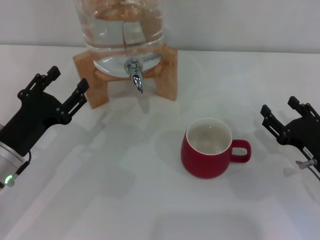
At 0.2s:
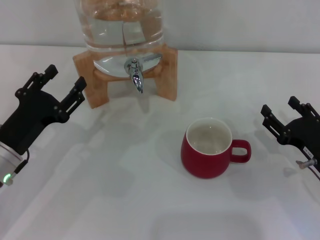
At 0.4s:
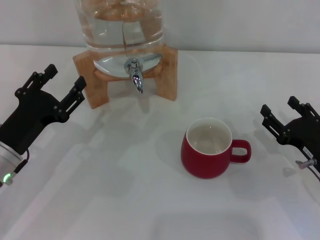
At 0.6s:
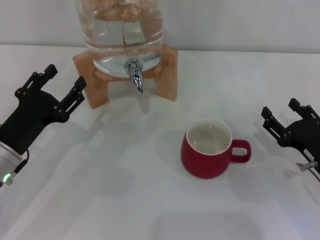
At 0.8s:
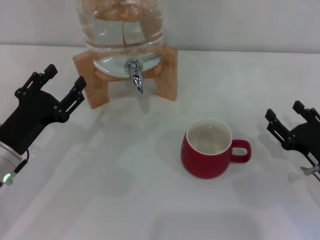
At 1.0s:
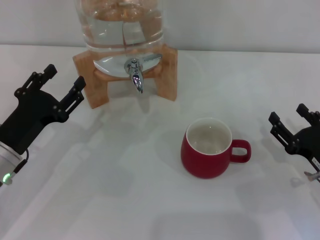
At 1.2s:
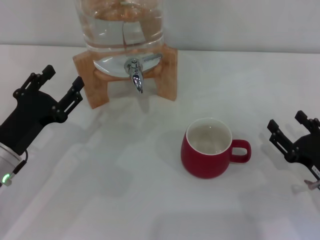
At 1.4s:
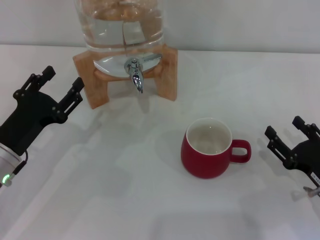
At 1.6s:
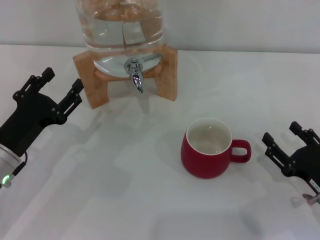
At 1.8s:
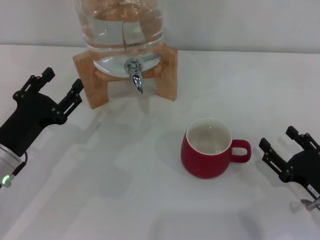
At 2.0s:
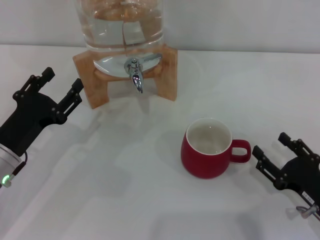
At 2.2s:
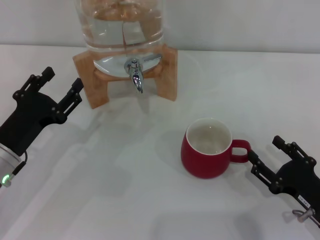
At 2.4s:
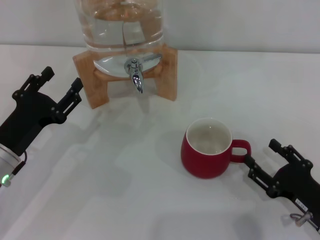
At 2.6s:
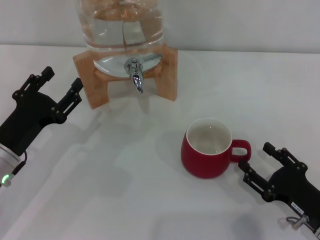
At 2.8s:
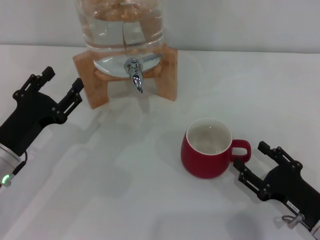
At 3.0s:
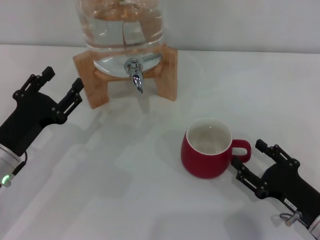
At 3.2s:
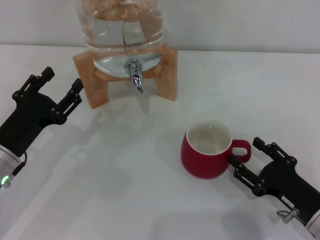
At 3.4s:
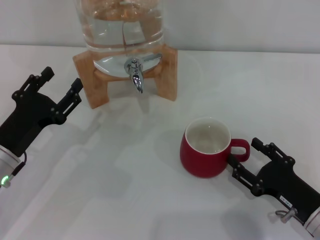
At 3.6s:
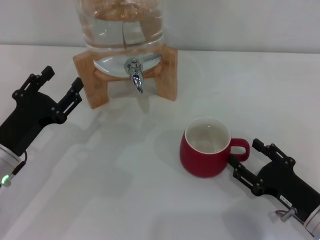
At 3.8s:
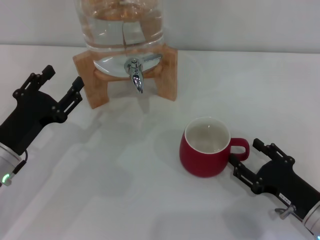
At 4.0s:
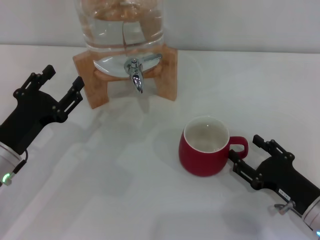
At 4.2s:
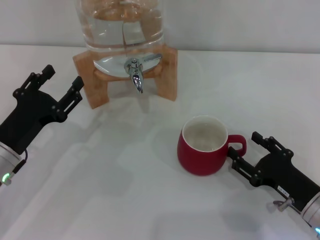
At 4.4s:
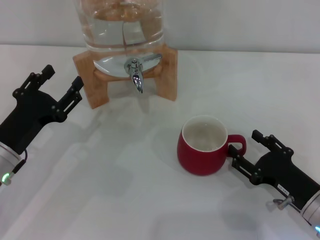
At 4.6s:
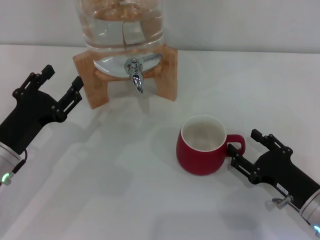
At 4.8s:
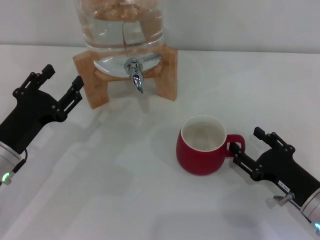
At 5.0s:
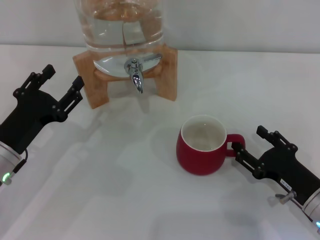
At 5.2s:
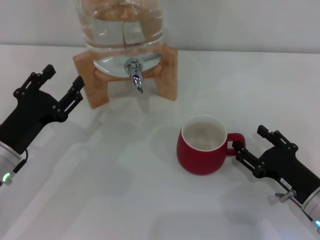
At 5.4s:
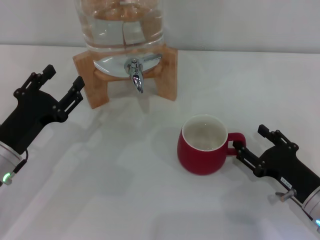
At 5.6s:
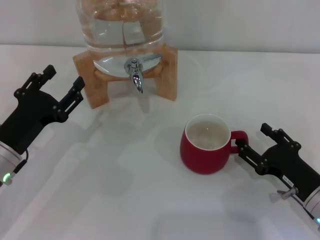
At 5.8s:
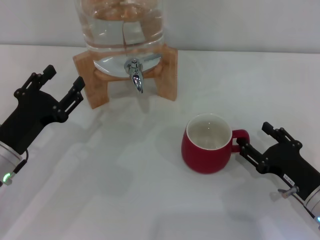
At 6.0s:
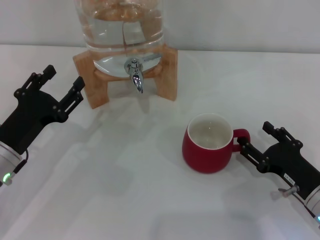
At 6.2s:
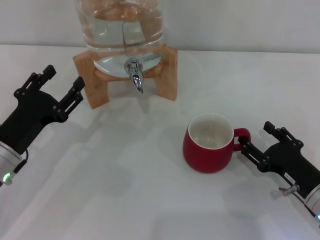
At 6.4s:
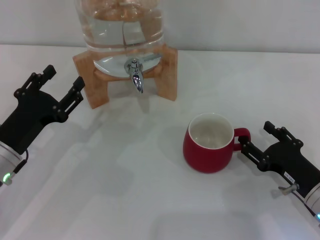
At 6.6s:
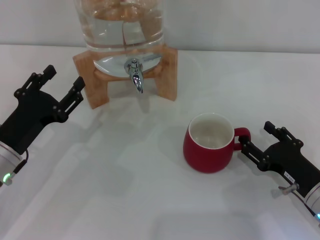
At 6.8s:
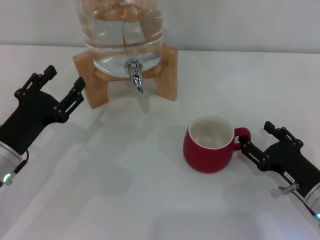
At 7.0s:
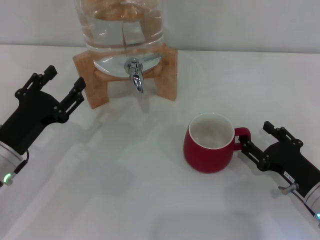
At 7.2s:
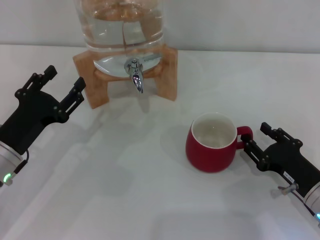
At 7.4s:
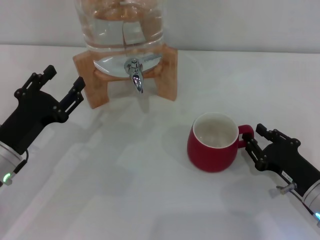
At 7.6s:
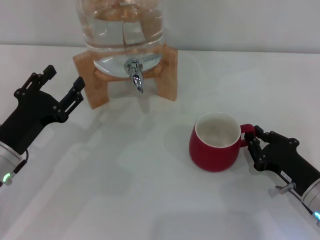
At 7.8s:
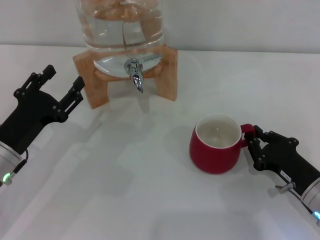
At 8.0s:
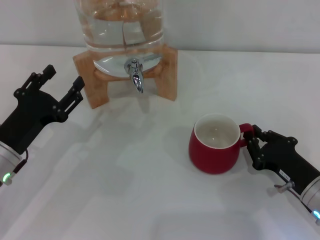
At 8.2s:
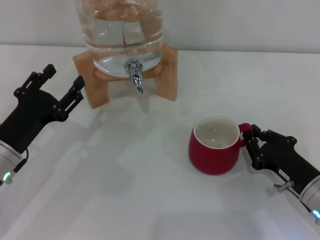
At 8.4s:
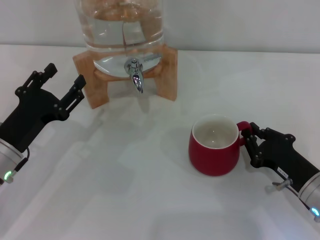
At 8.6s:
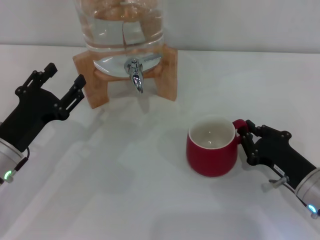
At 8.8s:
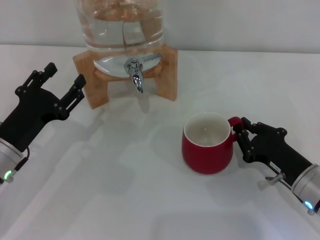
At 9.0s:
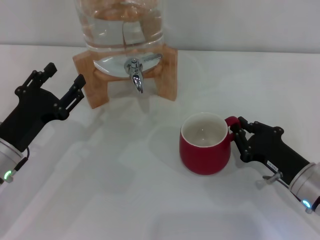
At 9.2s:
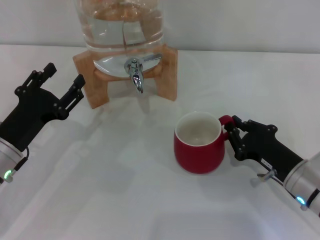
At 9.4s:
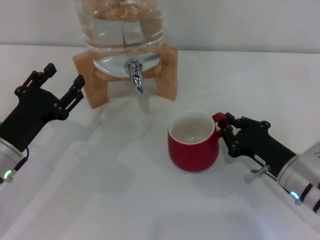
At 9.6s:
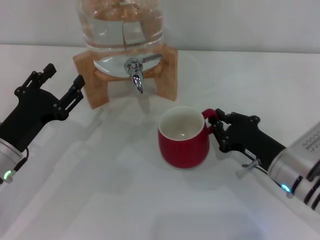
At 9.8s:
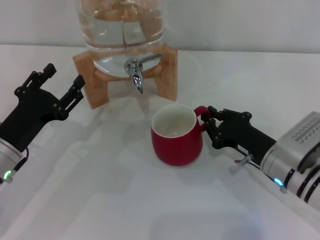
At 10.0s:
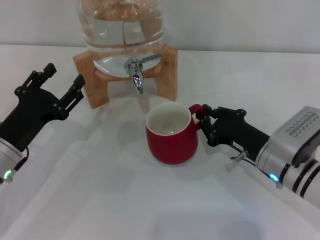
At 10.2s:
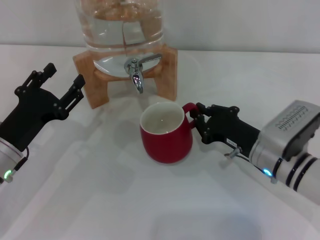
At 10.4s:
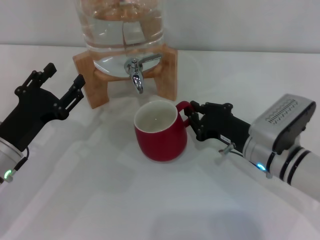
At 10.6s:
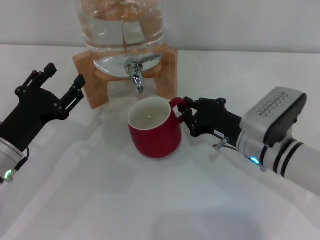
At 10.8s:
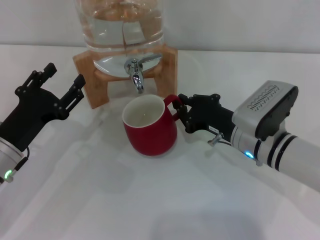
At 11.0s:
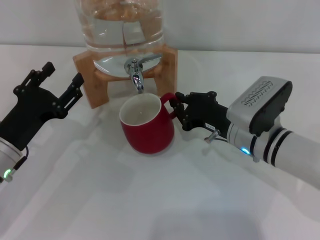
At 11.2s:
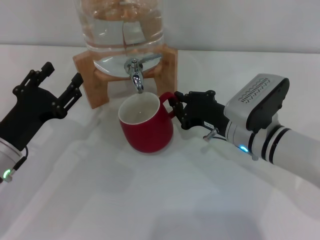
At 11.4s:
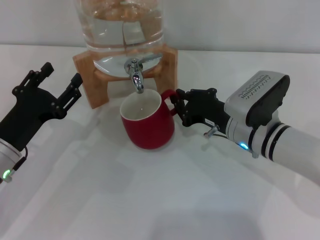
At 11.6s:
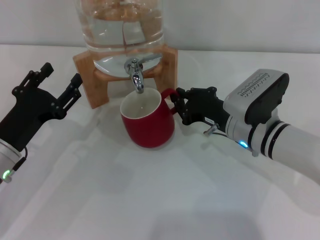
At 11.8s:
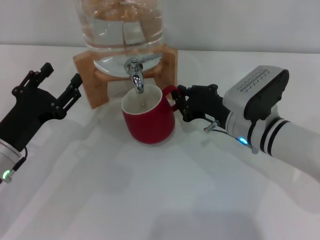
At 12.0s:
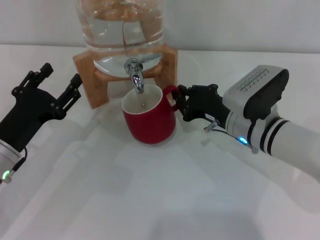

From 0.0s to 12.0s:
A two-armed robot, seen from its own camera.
Task of the whole recording: the right gripper pick up the red cup and place it horizontally under the faucet, the left gripper turn on the faucet to fill the cup, and then turn off the faucet.
From 0.0s to 1.6s: There are only small adjustments of the grippers.
From 1.6s to 6.0s: The grippers stay close to where they were, moving slightly.
From 6.0s to 7.6s: The right gripper closes.
From 7.6s to 9.0s: The right gripper closes its fingers.
From 9.0s to 10.4s: The right gripper moves to the left and forward, approximately 10 cm.
From 10.4s to 12.0s: The right gripper changes place by approximately 5 cm.

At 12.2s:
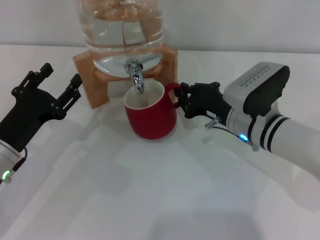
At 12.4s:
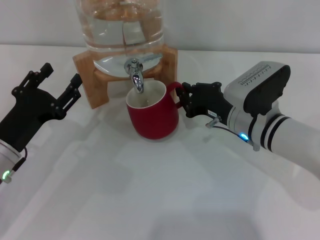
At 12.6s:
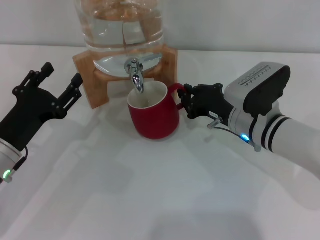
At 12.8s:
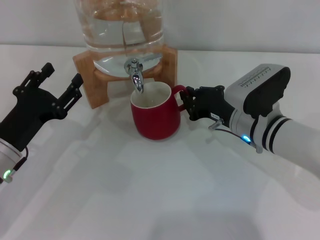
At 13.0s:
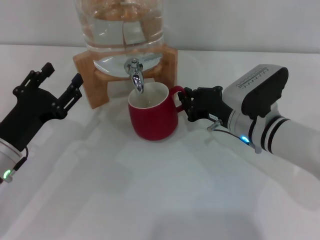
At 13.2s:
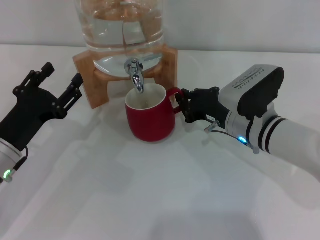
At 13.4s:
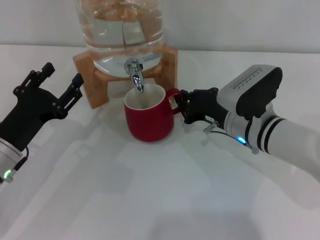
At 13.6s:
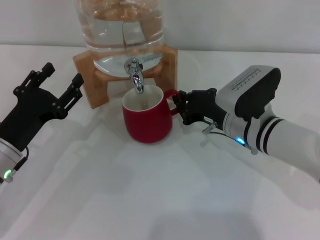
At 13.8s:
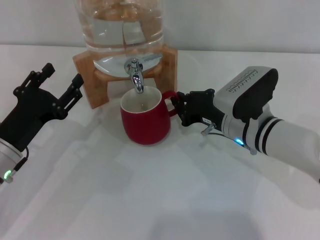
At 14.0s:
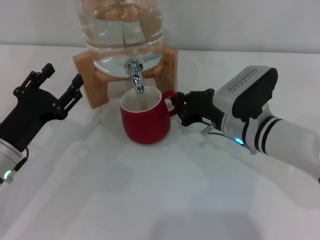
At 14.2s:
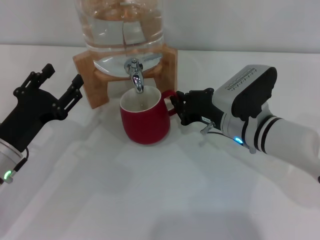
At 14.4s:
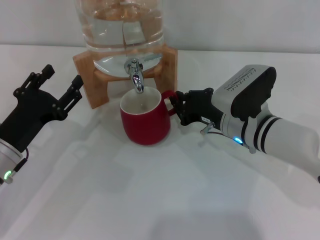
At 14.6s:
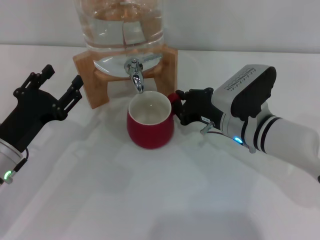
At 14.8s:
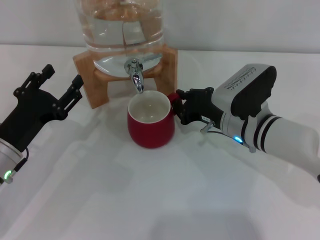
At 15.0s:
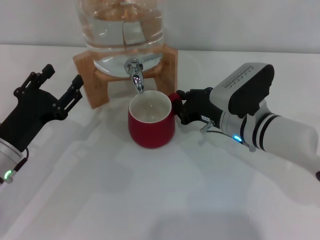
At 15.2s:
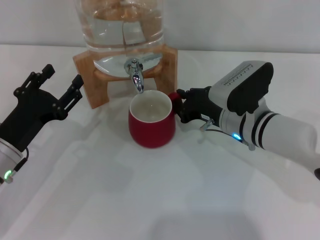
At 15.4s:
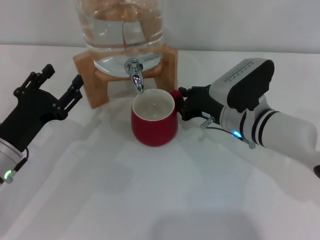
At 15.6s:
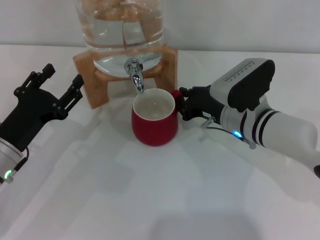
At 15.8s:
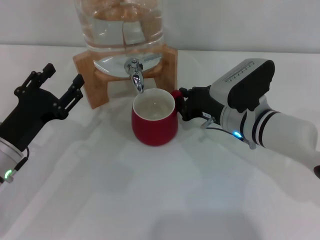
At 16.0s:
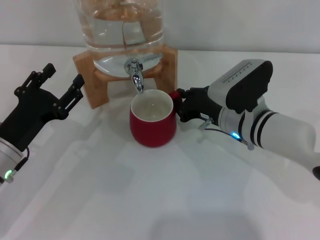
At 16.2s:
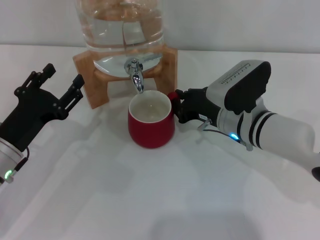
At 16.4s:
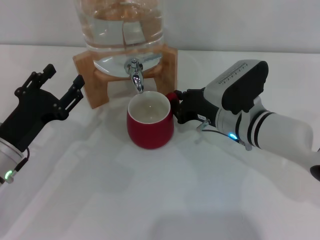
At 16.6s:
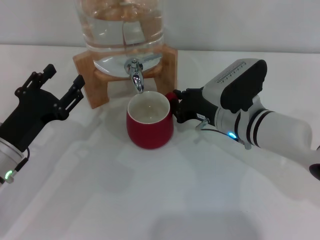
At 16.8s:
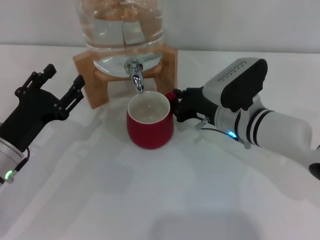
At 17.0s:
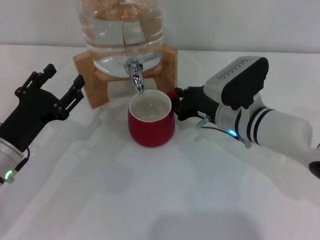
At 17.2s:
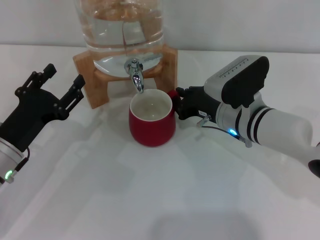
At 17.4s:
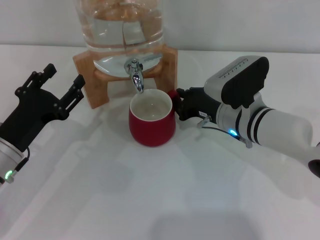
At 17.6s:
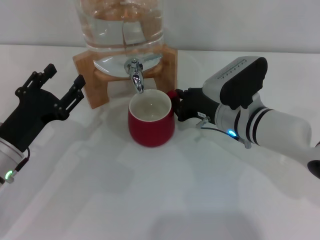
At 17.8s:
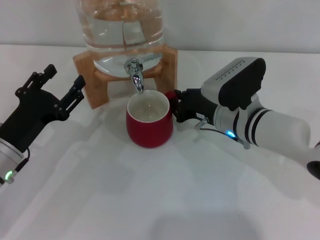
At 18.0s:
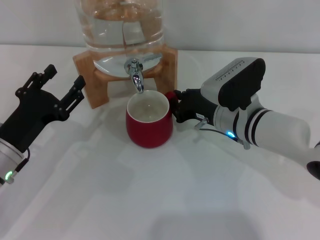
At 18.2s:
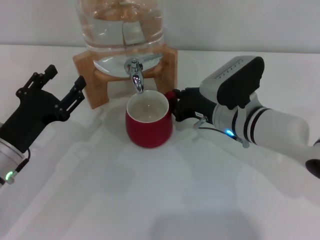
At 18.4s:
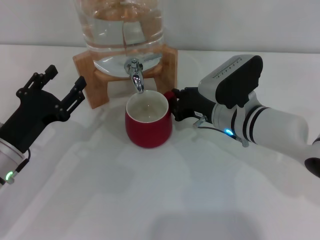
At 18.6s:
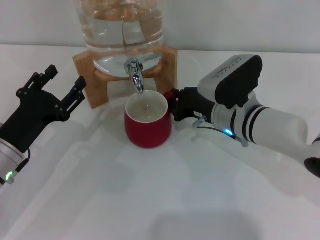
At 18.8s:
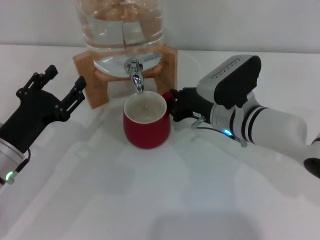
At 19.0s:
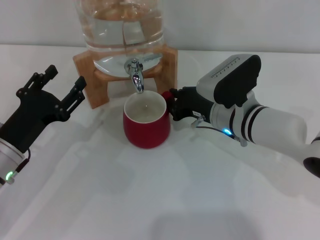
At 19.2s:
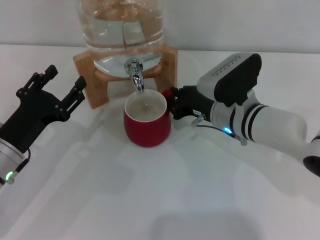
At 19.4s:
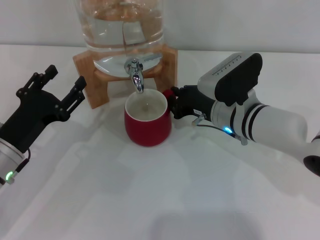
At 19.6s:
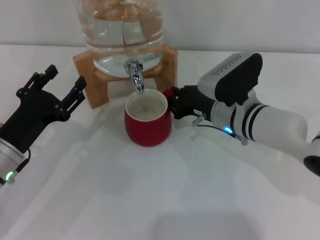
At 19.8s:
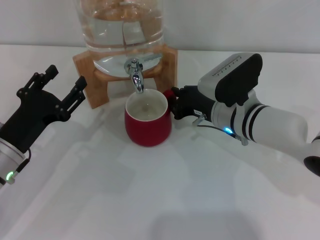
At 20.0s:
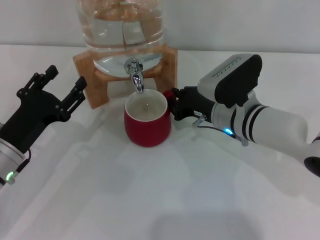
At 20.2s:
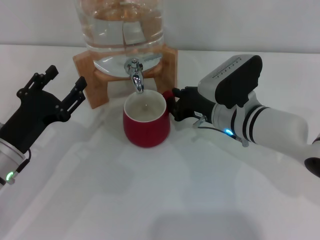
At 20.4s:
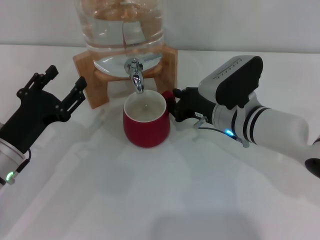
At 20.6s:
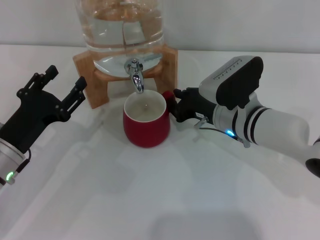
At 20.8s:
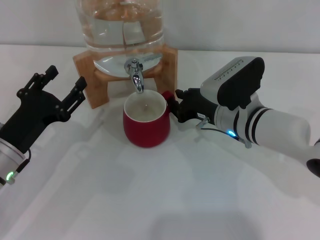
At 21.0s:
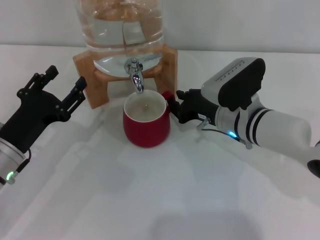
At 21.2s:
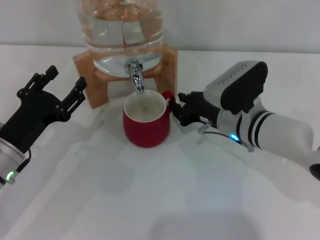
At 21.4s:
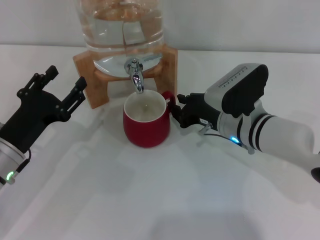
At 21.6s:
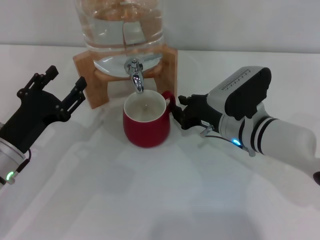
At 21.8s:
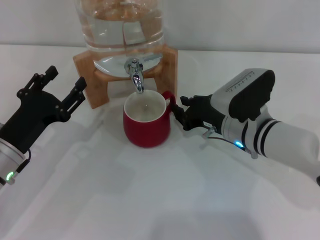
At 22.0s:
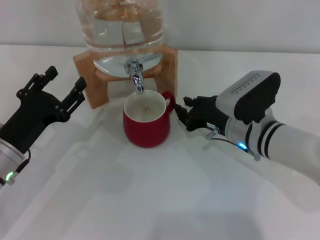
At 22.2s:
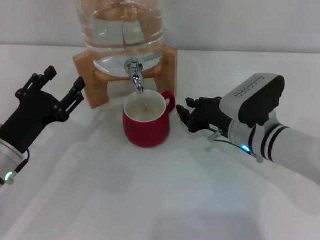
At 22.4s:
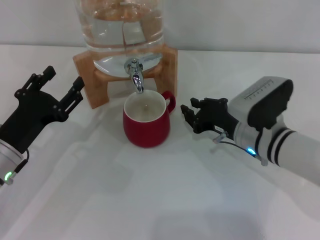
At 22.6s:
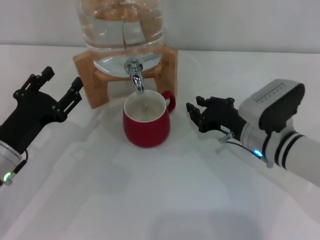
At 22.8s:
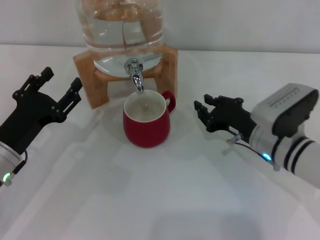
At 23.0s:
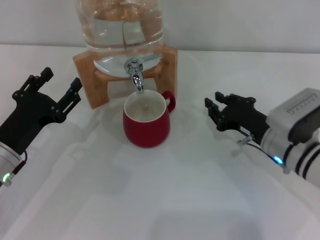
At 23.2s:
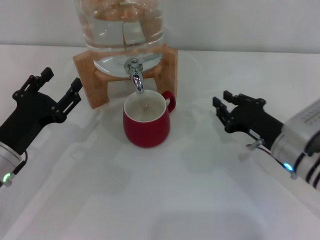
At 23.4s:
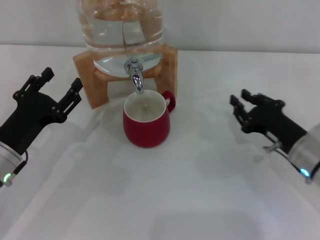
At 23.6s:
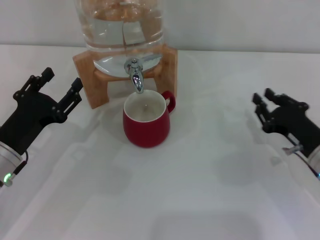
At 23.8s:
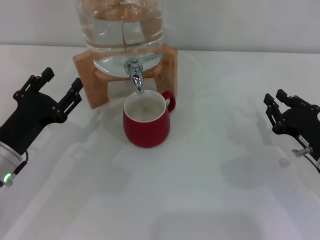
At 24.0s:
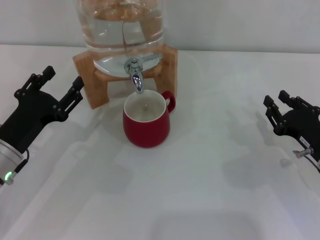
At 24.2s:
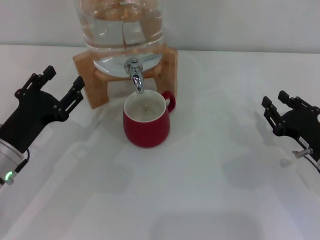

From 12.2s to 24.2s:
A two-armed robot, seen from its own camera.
Task of the whole recording: the right gripper pick up the red cup and place it horizontally under the faucet, the left gripper turn on the faucet to fill the cup, and then turn off the faucet.
Step, from 12.2s to 22.6s: Move the cup beneath the water dispenser nozzle with the right gripper.
From 12.2s to 13.8s: Both grippers stay put.
From 13.8s to 15.2s: Neither gripper changes place.
From 15.2s to 18.2s: Both grippers stay about where they are.
From 18.2s to 19.8s: Neither gripper changes place.
From 19.8s to 21.2s: There are only small adjustments of the grippers.
From 21.2s to 22.6s: The grippers make only small movements.
From 22.6s to 24.2s: The right gripper heads to the right and backward, covering some 10 cm.
